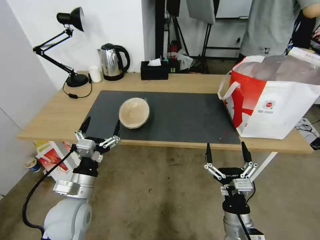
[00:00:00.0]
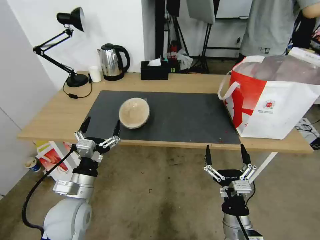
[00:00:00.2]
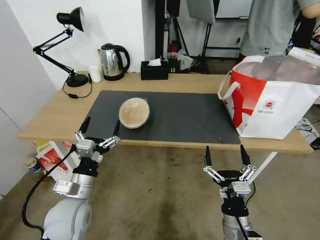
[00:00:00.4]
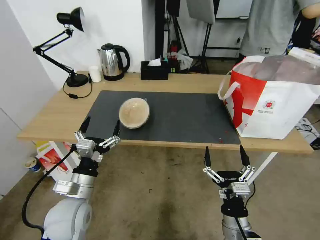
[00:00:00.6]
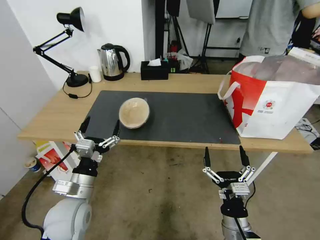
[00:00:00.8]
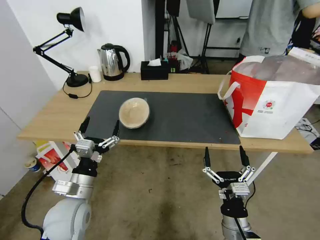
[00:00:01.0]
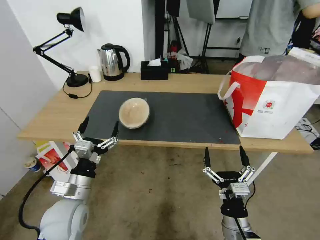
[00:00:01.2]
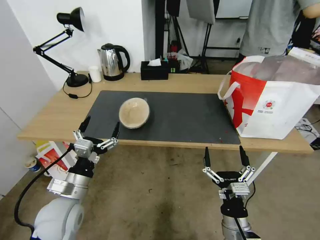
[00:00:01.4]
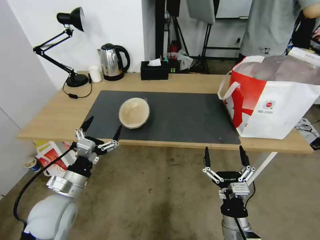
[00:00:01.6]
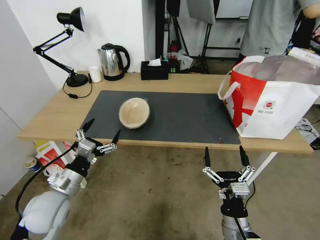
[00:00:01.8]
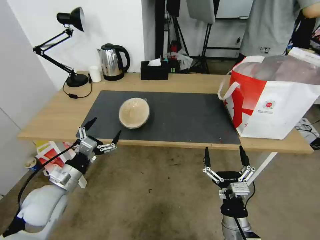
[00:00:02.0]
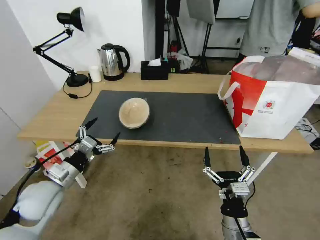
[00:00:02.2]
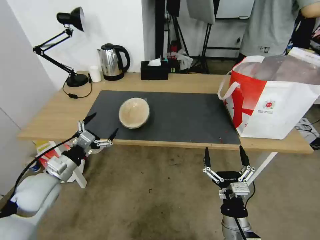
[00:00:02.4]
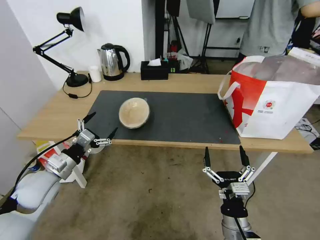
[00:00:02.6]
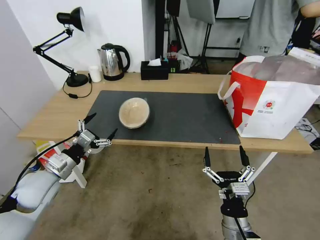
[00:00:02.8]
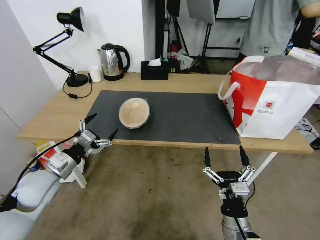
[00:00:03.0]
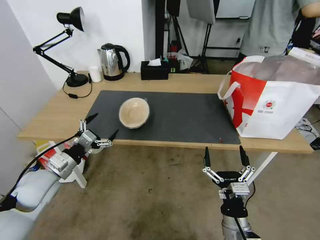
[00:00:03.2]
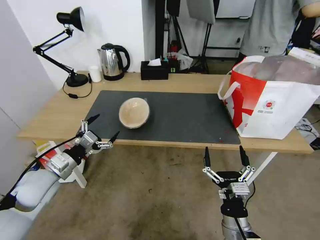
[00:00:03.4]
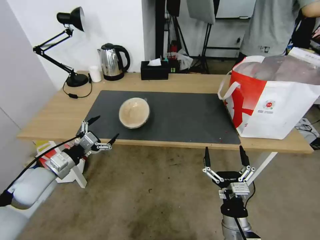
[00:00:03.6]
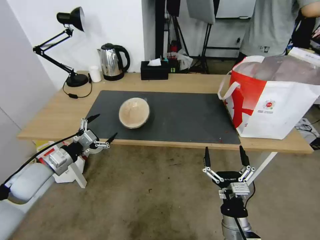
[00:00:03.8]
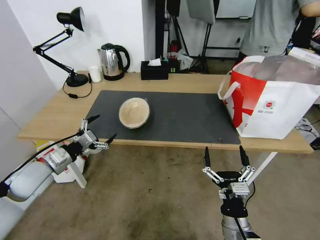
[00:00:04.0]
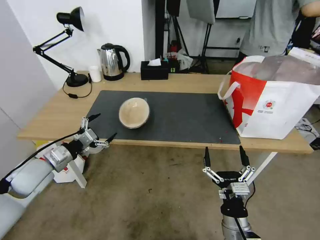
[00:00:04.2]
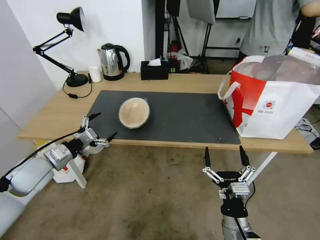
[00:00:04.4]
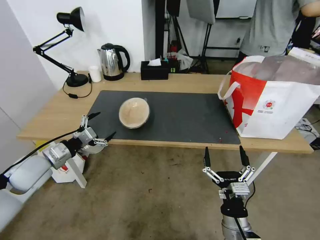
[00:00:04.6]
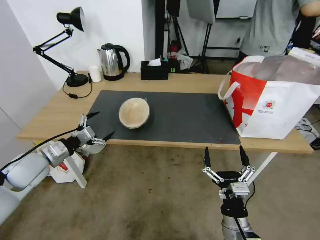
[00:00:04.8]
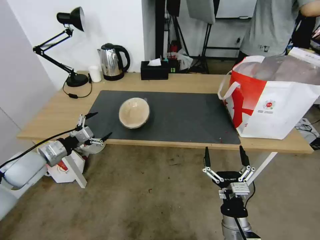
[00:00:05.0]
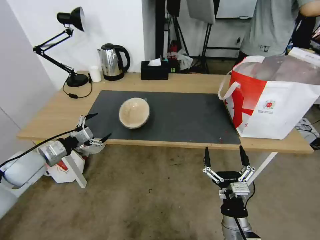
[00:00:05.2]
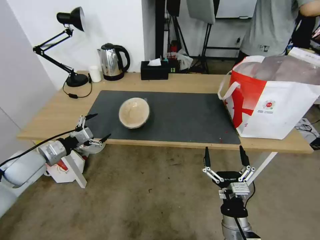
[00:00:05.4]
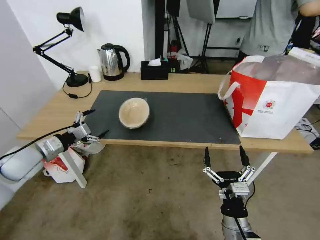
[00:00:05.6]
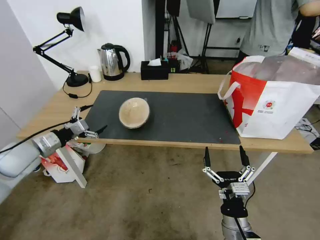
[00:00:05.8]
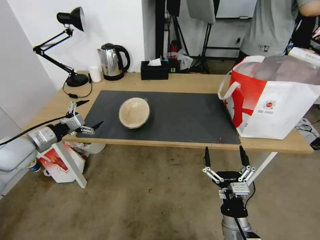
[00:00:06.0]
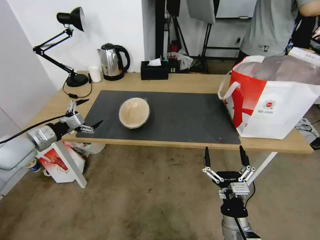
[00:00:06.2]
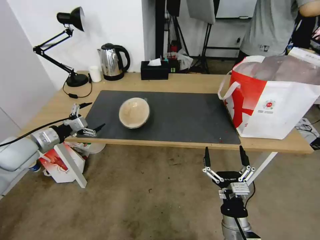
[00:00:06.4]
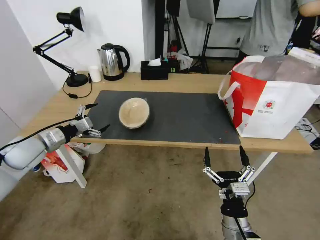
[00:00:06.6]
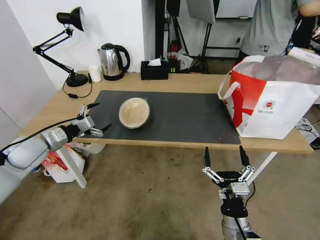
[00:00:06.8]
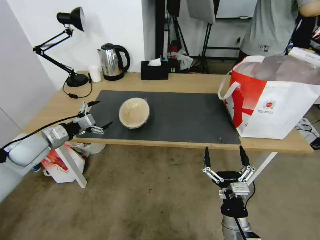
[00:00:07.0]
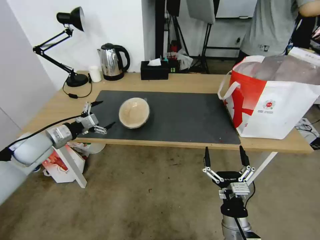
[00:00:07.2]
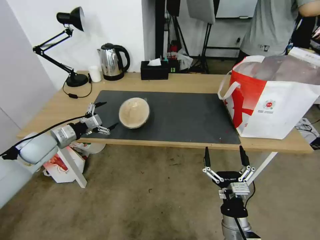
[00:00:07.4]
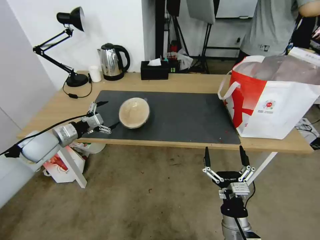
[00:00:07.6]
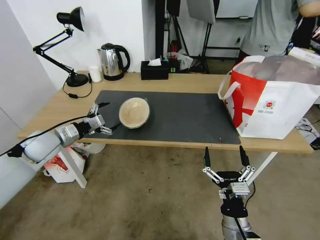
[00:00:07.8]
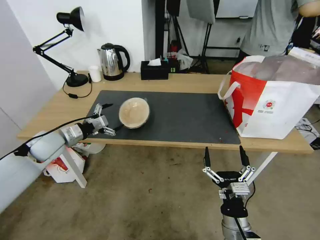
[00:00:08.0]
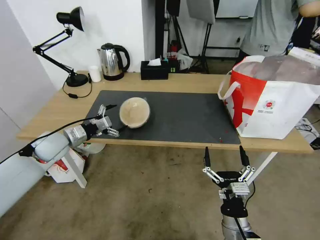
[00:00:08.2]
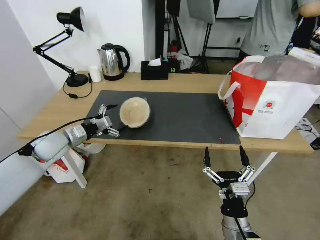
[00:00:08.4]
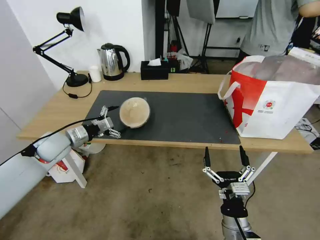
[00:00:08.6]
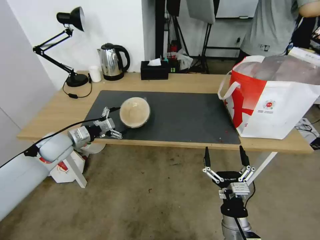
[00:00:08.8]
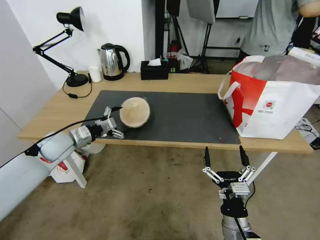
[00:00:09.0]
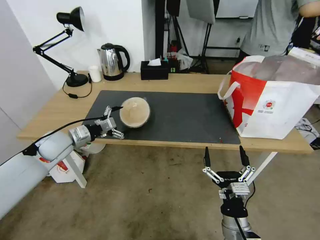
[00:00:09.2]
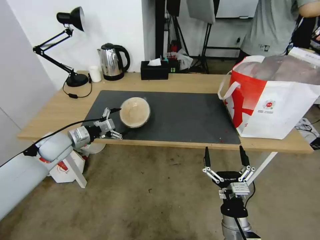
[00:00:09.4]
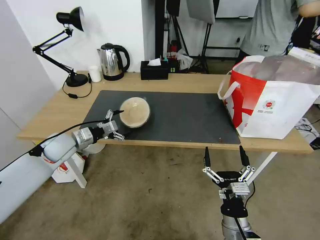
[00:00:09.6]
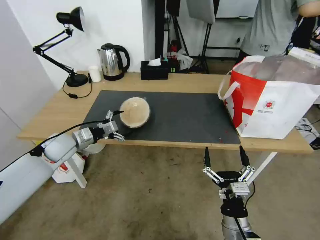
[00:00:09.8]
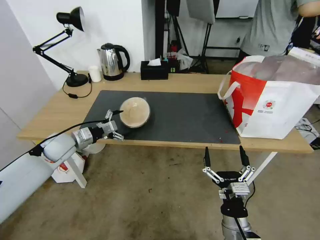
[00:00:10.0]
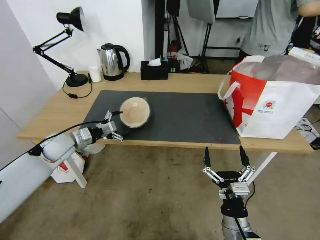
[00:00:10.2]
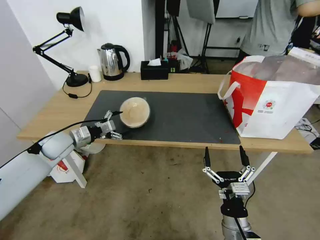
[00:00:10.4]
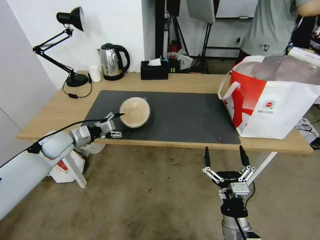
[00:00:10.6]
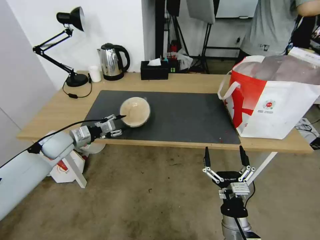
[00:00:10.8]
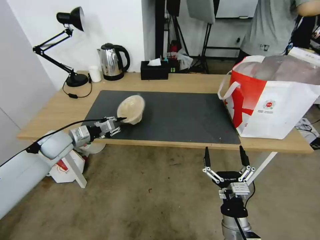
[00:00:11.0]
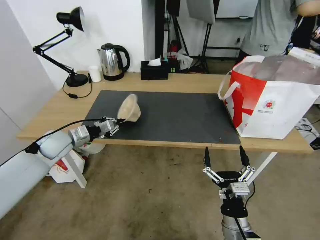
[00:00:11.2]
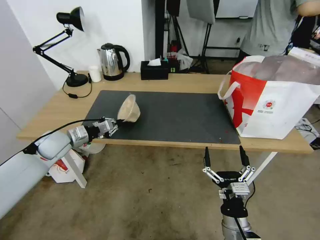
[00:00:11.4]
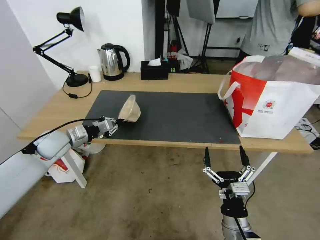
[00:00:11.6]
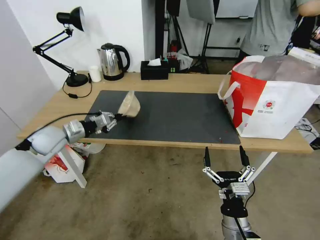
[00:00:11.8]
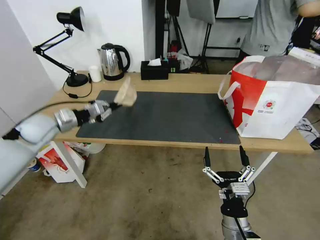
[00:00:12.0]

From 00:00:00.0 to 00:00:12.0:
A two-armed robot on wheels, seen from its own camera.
Task of the whole recording: Pick up the trash from the table and place it into the takeout bag.
From 00:00:00.0 to 00:00:01.6: There are only small adjustments of the grippers.
From 00:00:01.6 to 00:00:03.0: The left gripper heads to the left and forward, covering about 10 cm.
From 00:00:03.0 to 00:00:04.4: The grippers stay close to where they were, moving slightly.
From 00:00:04.4 to 00:00:06.0: The left gripper shifts by roughly 10 cm.
From 00:00:06.0 to 00:00:07.6: The left gripper moves some 5 cm.
From 00:00:07.6 to 00:00:10.4: The grippers move only a little.
From 00:00:10.4 to 00:00:12.0: The left gripper shifts roughly 5 cm upward, and closes its fingers.

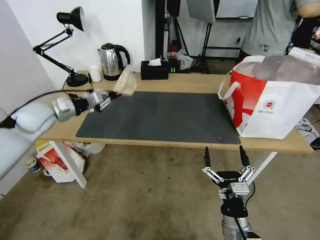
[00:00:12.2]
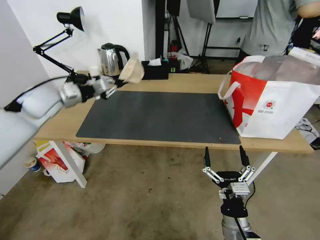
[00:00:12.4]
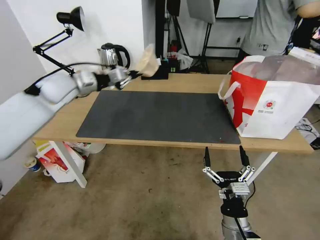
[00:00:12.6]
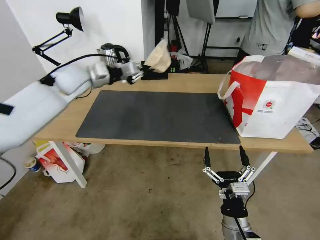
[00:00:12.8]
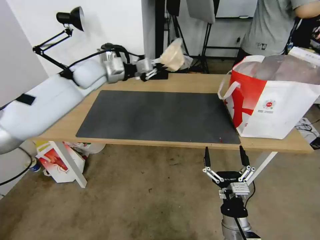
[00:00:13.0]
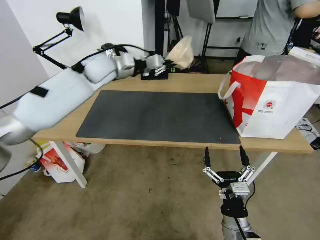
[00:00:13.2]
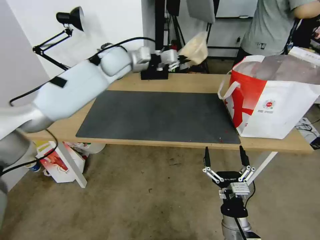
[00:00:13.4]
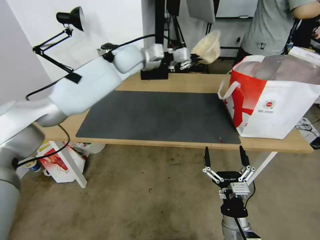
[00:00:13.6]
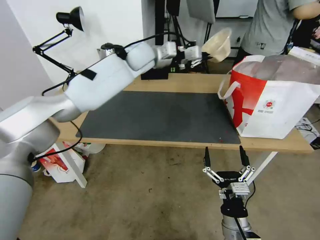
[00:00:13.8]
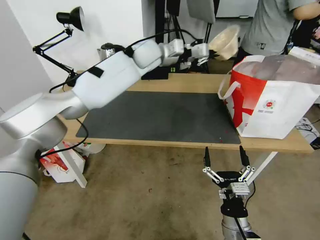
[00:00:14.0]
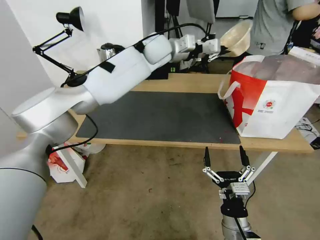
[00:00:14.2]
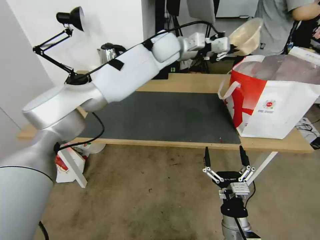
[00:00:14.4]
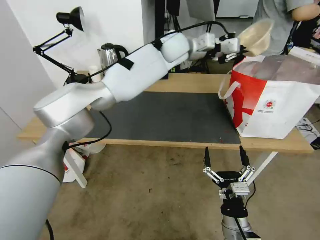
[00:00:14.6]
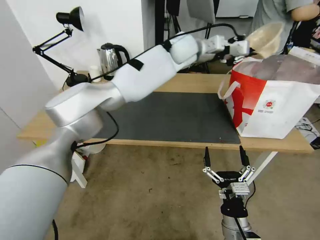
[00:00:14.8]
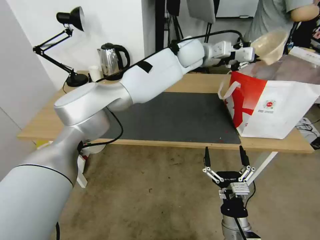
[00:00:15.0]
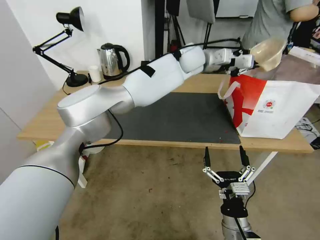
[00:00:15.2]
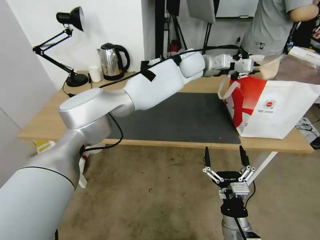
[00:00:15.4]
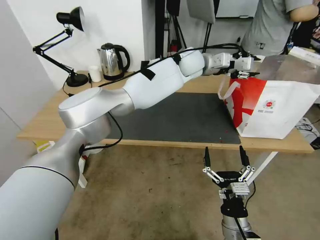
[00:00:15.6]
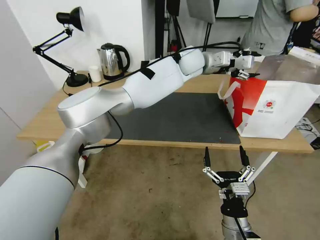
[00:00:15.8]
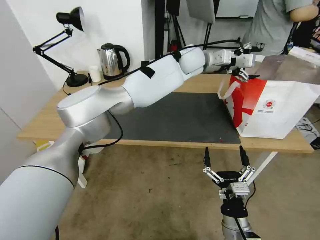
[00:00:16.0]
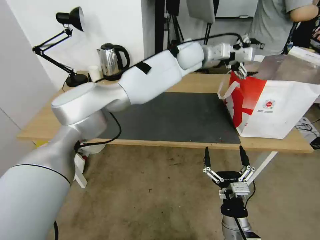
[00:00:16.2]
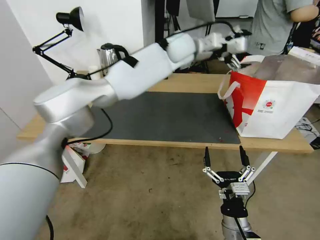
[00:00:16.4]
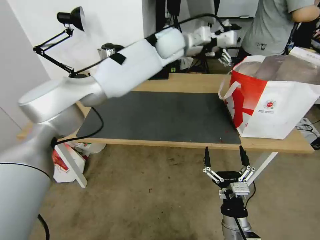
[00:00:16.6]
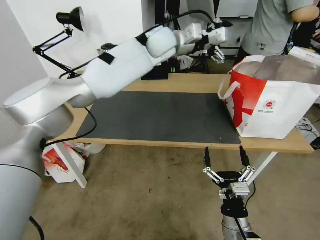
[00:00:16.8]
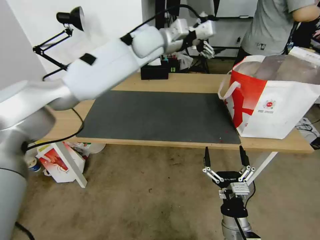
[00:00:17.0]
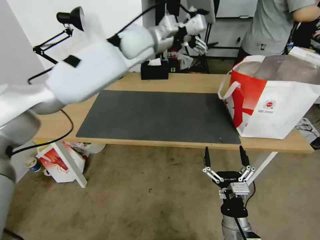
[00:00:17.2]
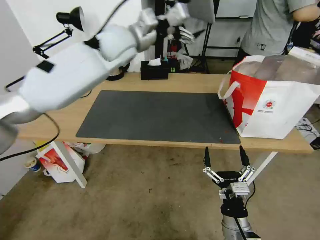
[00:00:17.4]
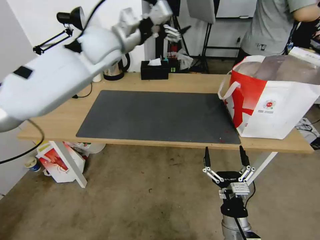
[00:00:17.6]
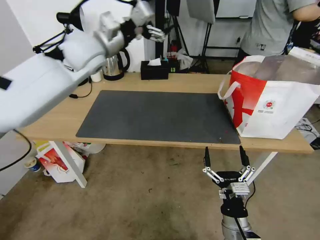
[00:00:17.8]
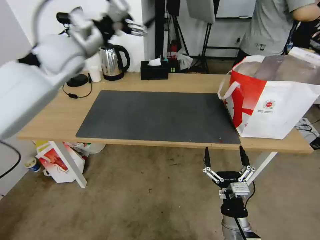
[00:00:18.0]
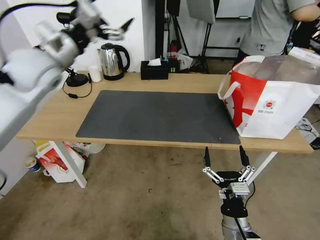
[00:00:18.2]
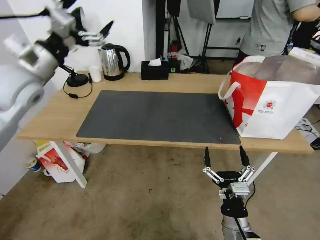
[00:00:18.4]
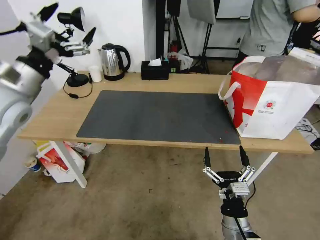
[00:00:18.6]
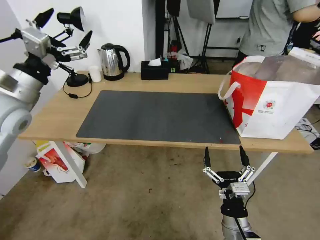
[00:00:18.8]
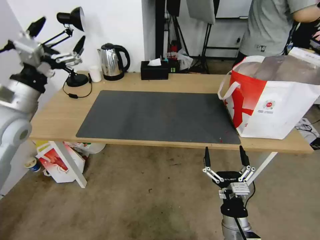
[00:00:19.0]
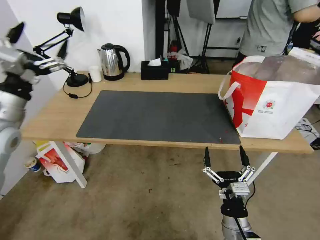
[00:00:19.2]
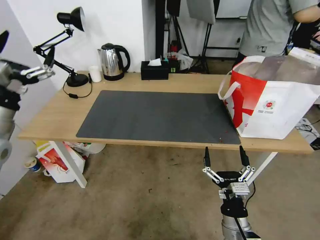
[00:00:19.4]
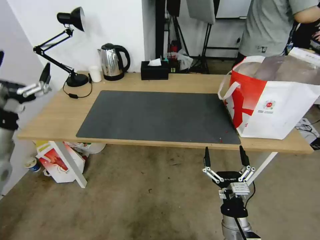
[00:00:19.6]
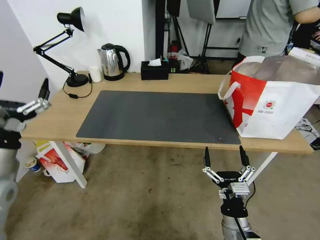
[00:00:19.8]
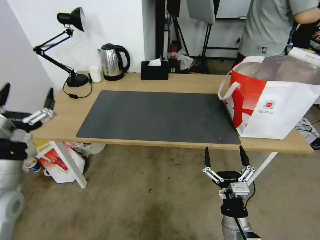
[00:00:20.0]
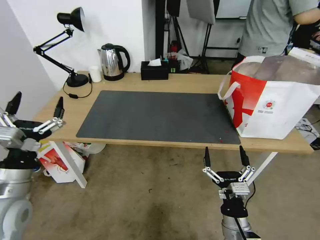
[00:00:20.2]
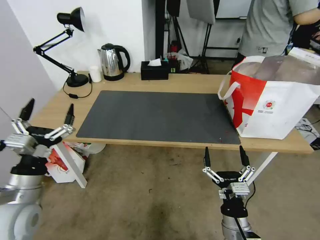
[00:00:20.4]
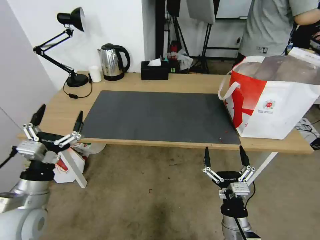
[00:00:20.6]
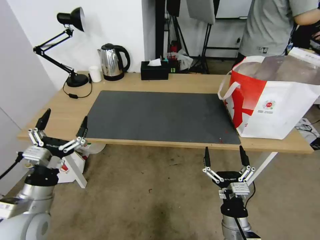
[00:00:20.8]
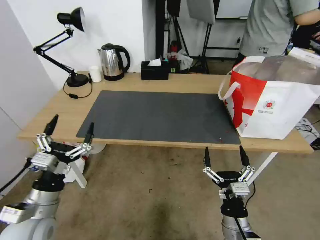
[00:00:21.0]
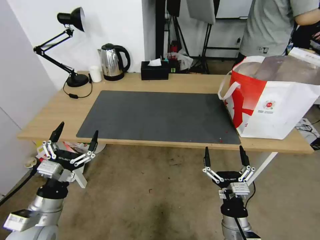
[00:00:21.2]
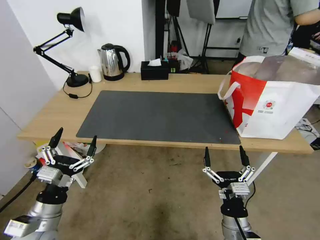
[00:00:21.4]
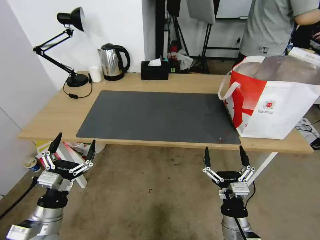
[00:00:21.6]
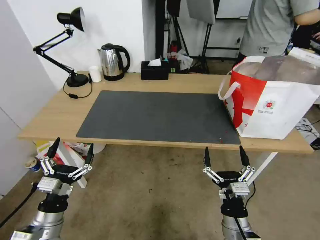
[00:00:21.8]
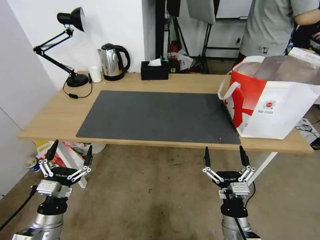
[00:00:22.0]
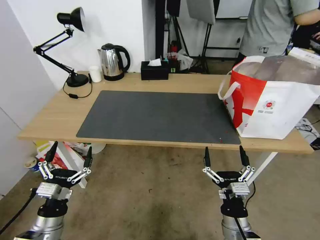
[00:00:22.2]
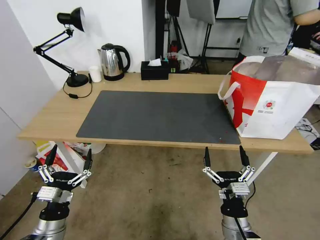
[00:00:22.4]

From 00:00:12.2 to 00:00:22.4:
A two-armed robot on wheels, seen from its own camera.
Task of the whole recording: Pick up the trash from the table and place it into the takeout bag.
From 00:00:12.2 to 00:00:13.6: The left gripper shifts roughly 35 cm to the right, forward and upward.
From 00:00:13.6 to 00:00:15.2: The left gripper travels to the right by roughly 20 cm.
From 00:00:15.2 to 00:00:16.6: The left gripper heads to the left and upward, covering roughly 10 cm, and opens its fingers.
From 00:00:16.6 to 00:00:18.0: The left gripper heads to the left and backward, covering some 30 cm.
From 00:00:18.0 to 00:00:19.4: The left gripper goes about 25 cm backward, to the left and downward.
From 00:00:19.4 to 00:00:21.0: The left gripper goes about 20 cm downward, backward and to the right.
From 00:00:21.0 to 00:00:22.4: The left gripper travels downward by approximately 10 cm.
